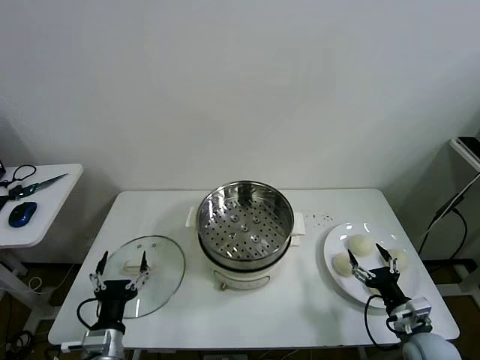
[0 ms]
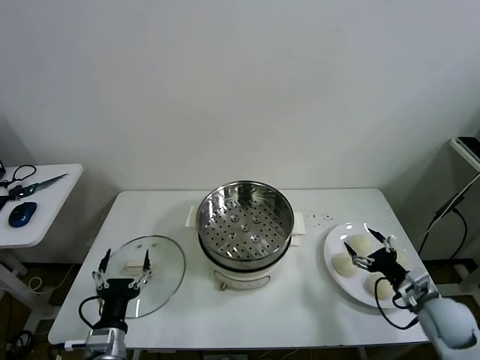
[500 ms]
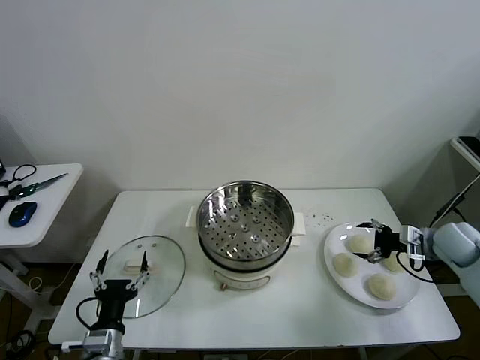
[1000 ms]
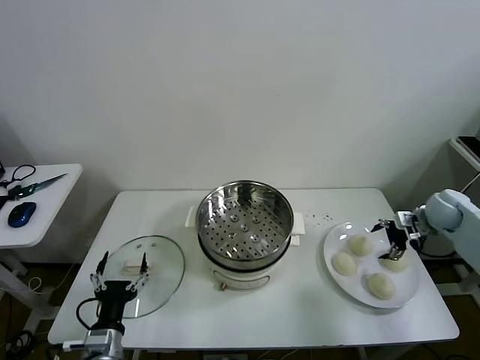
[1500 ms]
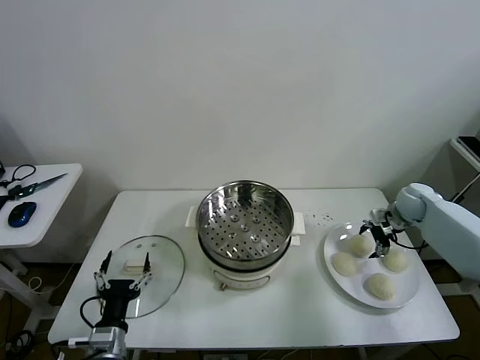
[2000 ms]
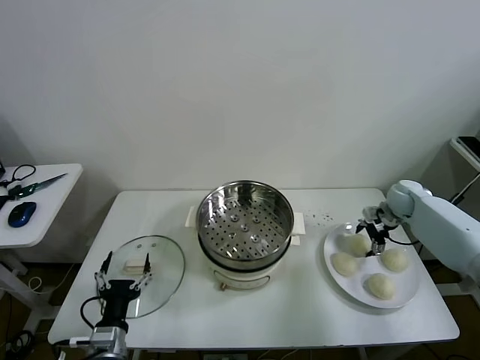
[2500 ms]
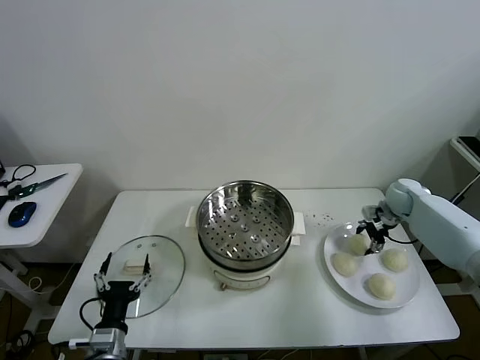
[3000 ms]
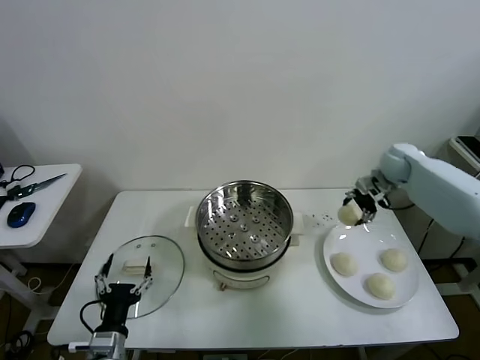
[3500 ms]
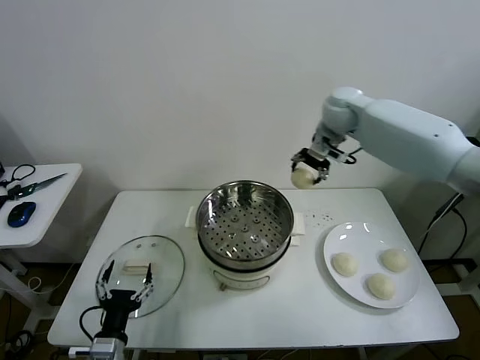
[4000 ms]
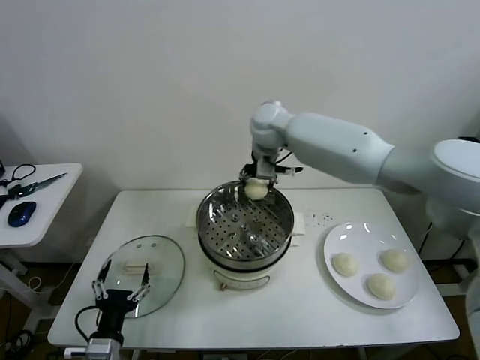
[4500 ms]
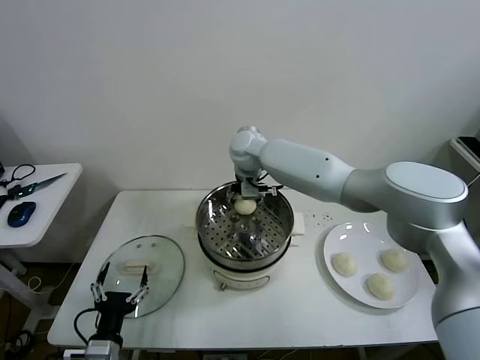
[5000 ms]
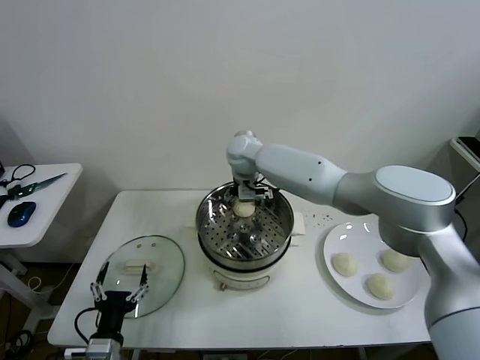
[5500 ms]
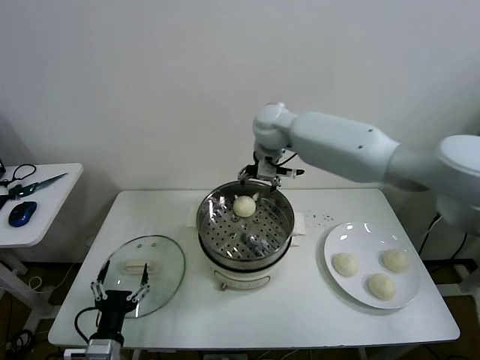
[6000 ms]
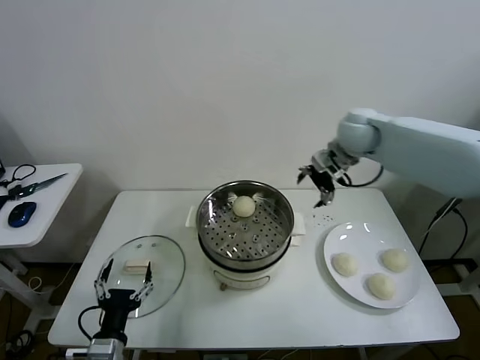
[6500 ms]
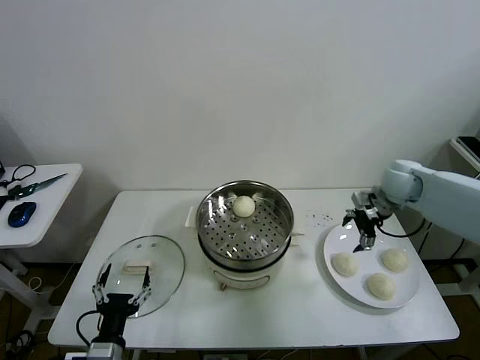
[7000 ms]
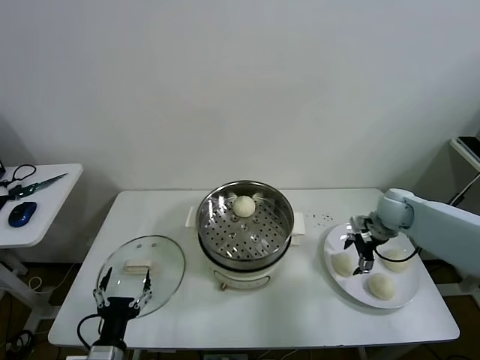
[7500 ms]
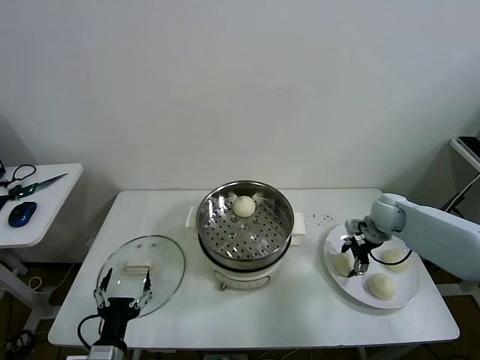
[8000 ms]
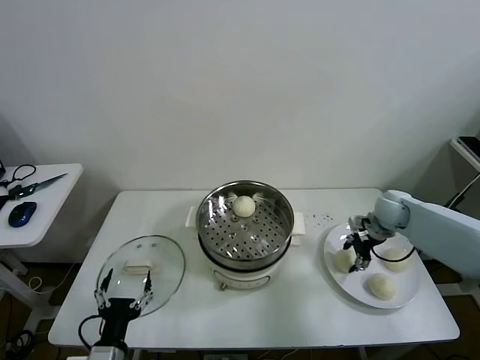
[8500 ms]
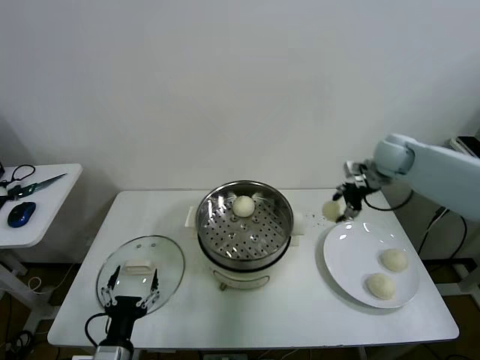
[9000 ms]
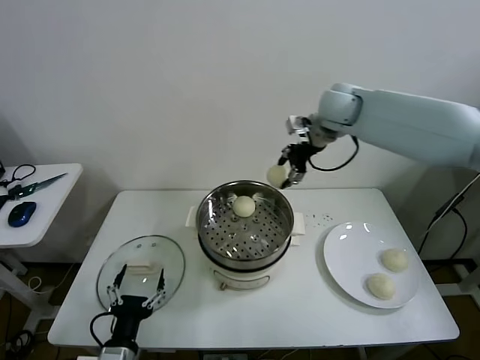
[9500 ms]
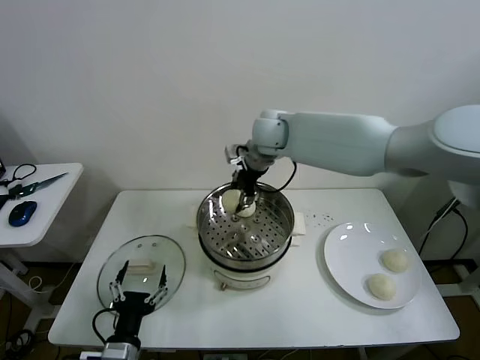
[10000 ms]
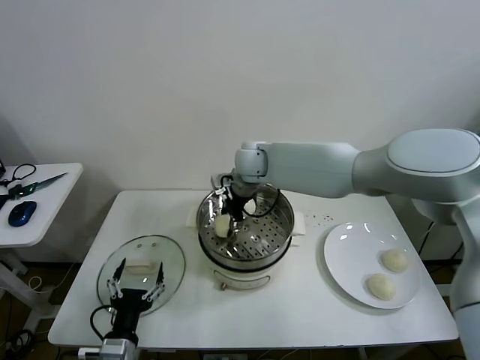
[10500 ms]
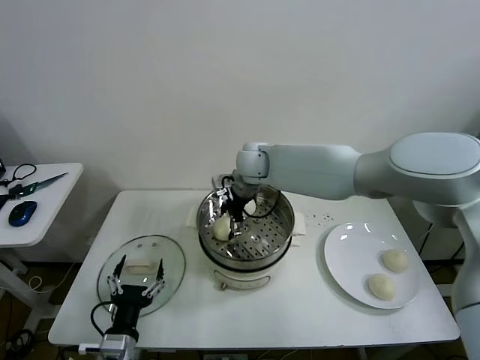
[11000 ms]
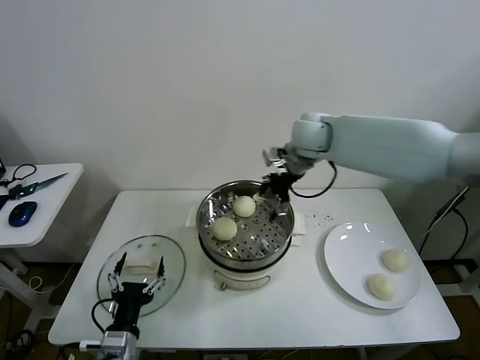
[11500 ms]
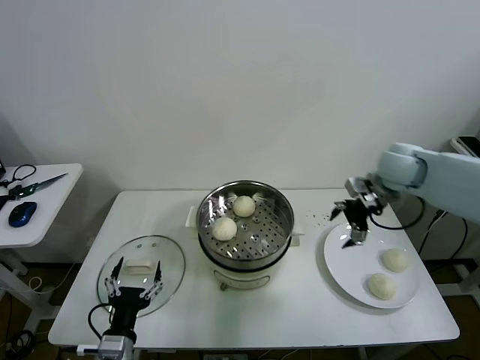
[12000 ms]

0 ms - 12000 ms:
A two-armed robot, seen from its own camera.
Task of the whole recording: take steamed baozi put them in steamer then cover it.
Step, 0 ms - 2500 ms: Grasp the baozi in the plate with right gripper.
Step, 3500 ms - 5500 ms: Place the baozi on the steamer with right gripper.
Step, 6000 ms - 8000 ms: Grasp the baozi in the plate with right gripper.
Step, 8500 ms - 10500 ms: Place the baozi on the steamer with right gripper.
2000 ms - 4000 ms: The right gripper is displaced to the left and upward by approximately 35 cm, and closes up.
4000 ms - 6000 ms: The right gripper moves to the left, some 10 cm, and opens.
6000 ms - 8000 ms: The right gripper moves to the right and downward, about 35 cm, and closes up.
8000 ms - 10000 ms: The right gripper moves to the left and upward, approximately 40 cm, and closes.
10000 ms - 12000 ms: The right gripper heads to the right, covering roughly 30 cm, and opens up.

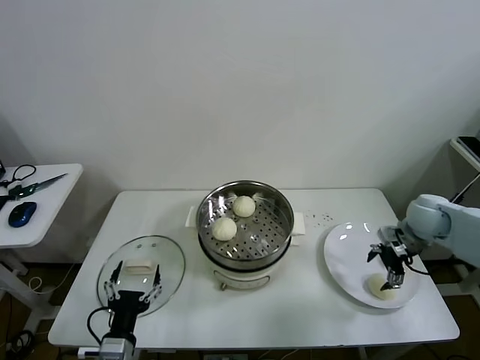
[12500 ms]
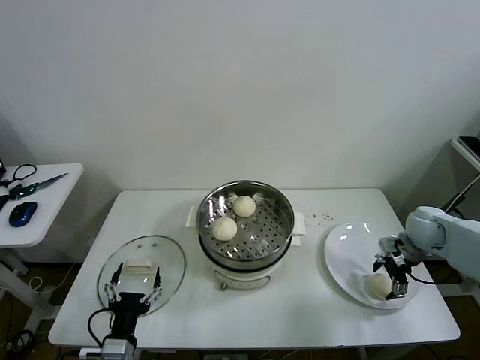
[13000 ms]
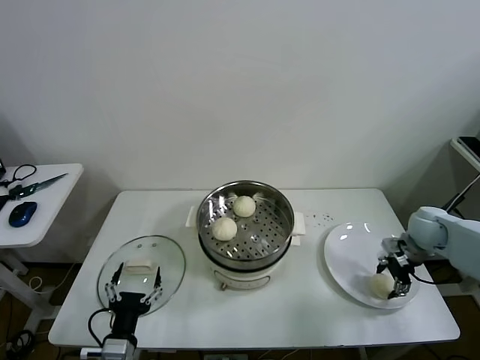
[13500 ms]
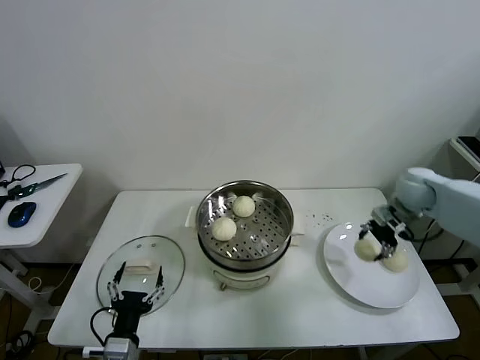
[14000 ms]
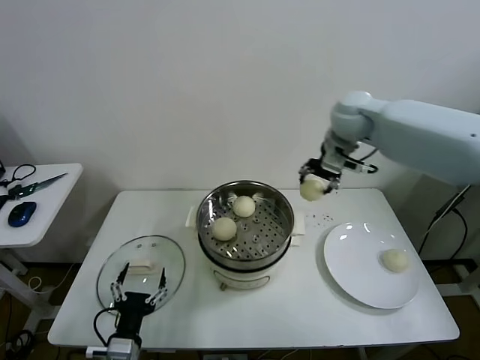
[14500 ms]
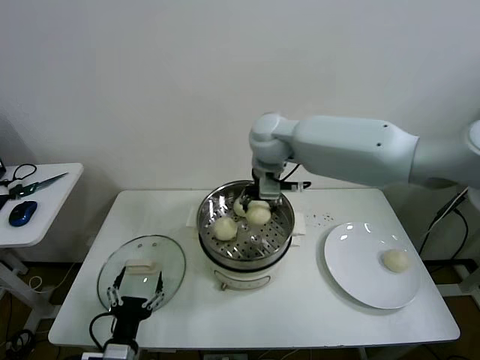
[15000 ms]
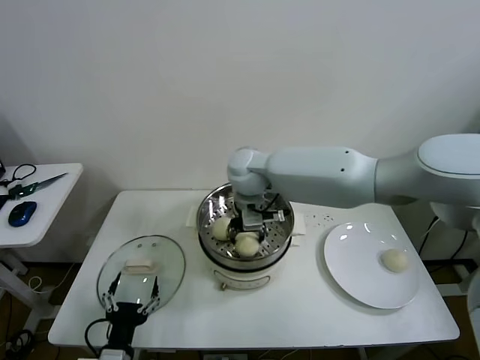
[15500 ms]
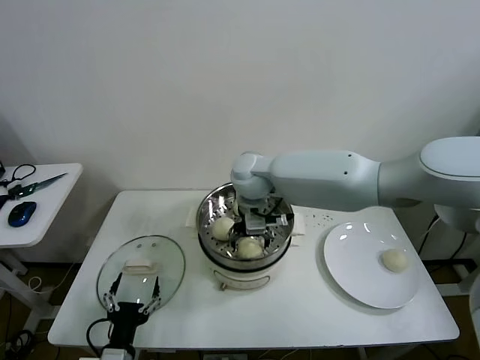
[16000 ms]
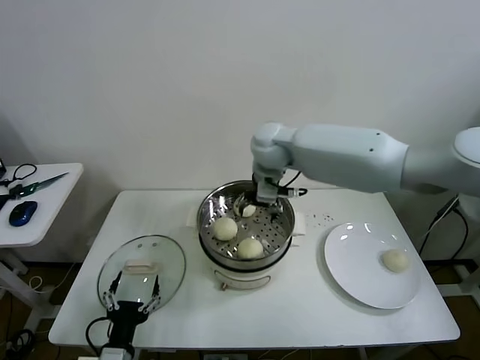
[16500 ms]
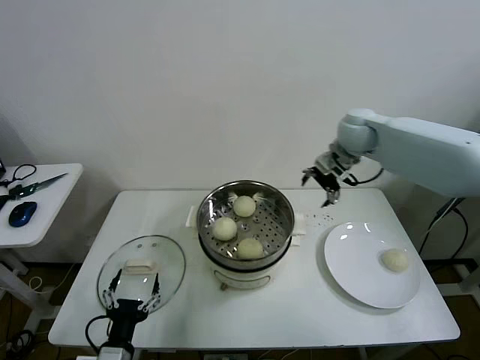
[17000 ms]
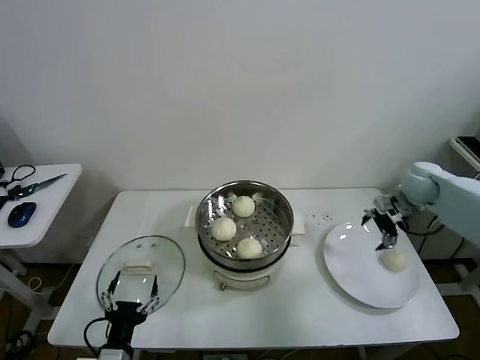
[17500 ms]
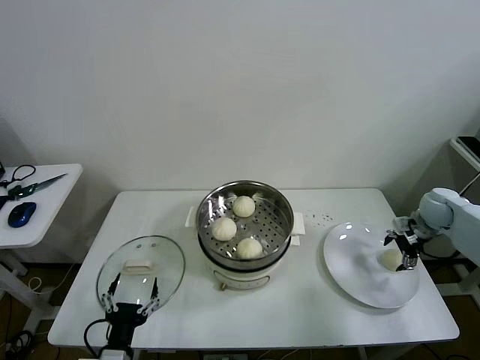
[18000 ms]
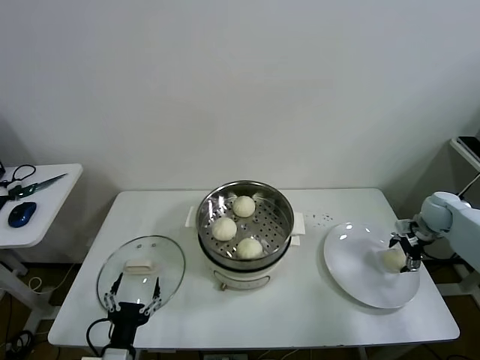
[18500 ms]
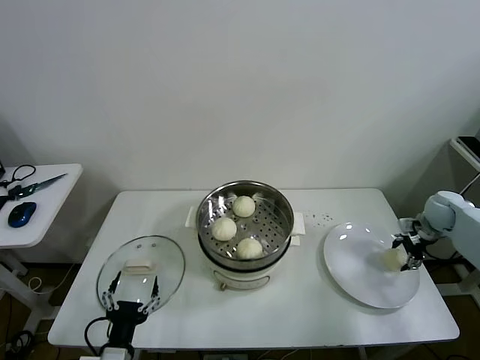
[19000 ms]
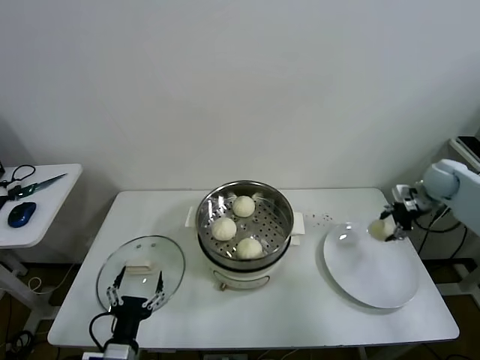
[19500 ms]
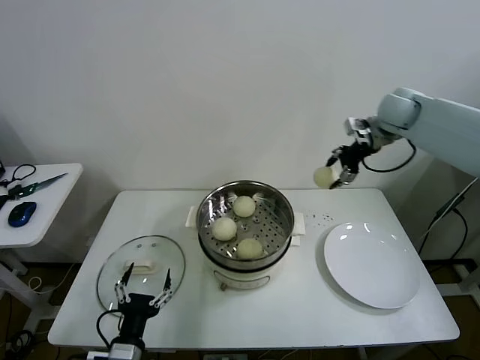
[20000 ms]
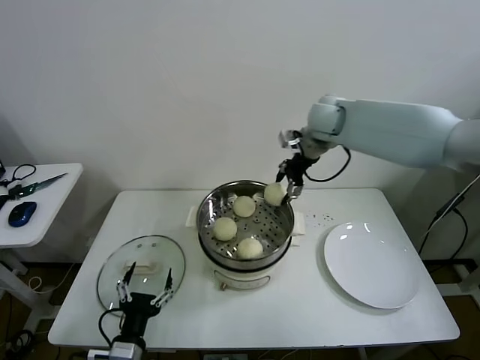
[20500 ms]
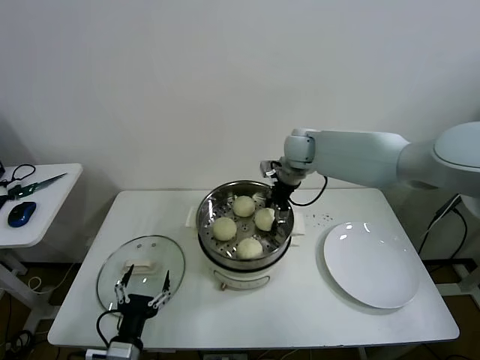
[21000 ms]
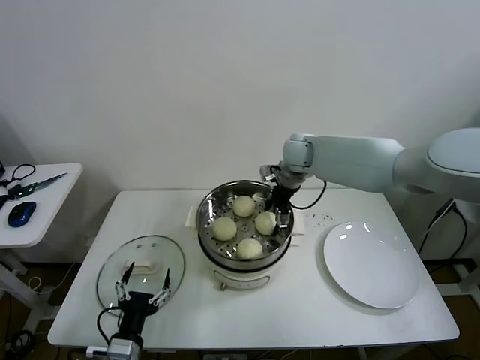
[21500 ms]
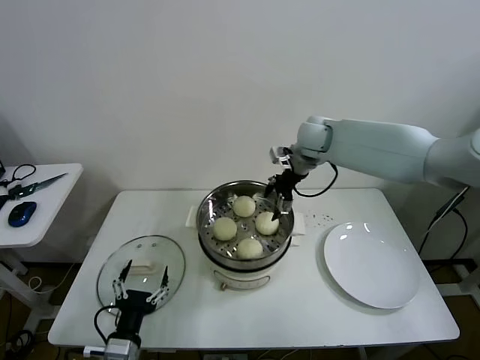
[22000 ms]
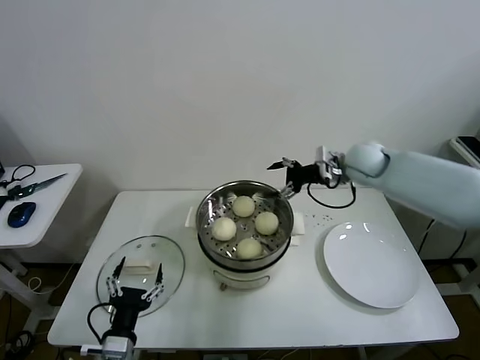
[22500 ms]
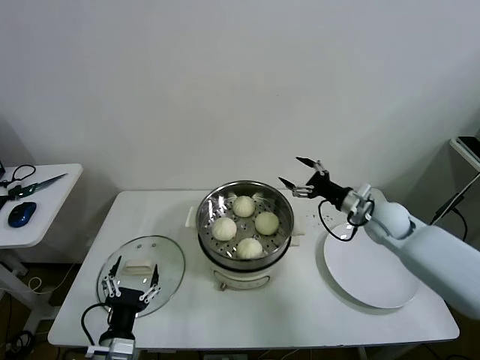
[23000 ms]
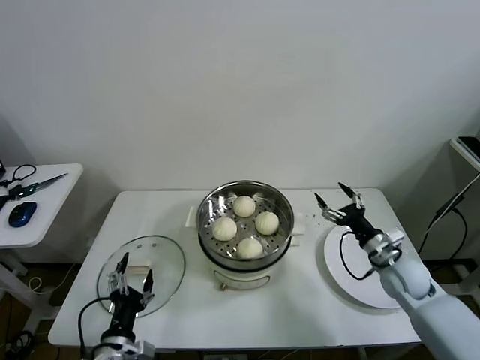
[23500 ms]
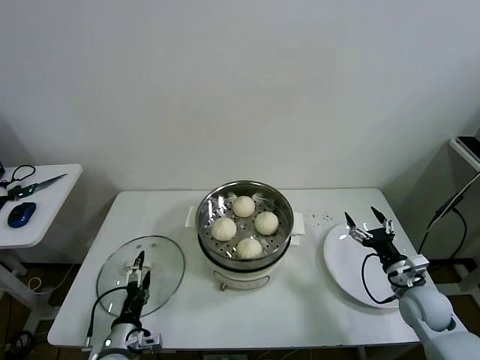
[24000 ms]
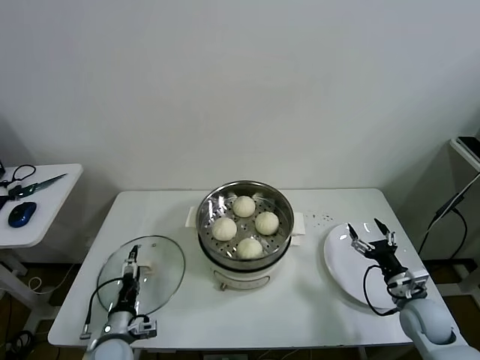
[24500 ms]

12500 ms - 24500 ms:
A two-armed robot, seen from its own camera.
Task of the whole recording: take steamed baozi put them in steamer then cover it.
Step, 14000 ms - 16000 ms: Place the baozi on the steamer with right gripper.
Step, 16500 ms - 18500 ms: Grasp the baozi in the plate with right gripper.
Step, 19500 ms - 21500 ms: Place the baozi on the steamer with right gripper.
12500 ms - 14500 ms: The right gripper moves to the left, upward and forward, about 35 cm, and closes its fingers.
14500 ms - 16500 ms: The right gripper shifts about 15 cm to the left and downward, and opens.
16500 ms - 18500 ms: The right gripper shifts some 50 cm to the right and downward.
18500 ms - 20500 ms: The right gripper is displaced to the left and upward by some 40 cm, and closes up.
20500 ms - 22500 ms: The right gripper goes roughly 15 cm downward and to the right, and opens its fingers.
22500 ms - 24500 ms: The left gripper heads downward and forward, covering approximately 10 cm, while the right gripper shifts roughly 40 cm backward, downward and to the right.

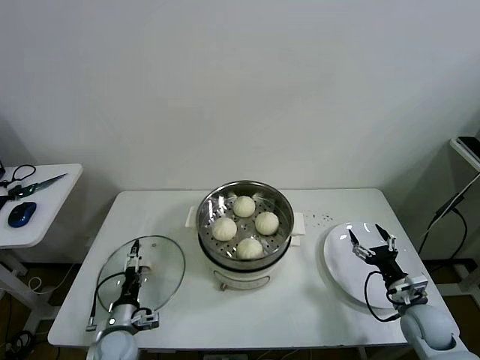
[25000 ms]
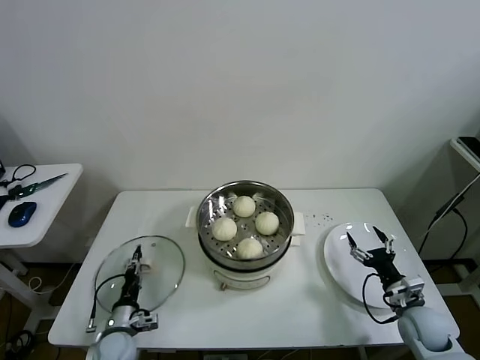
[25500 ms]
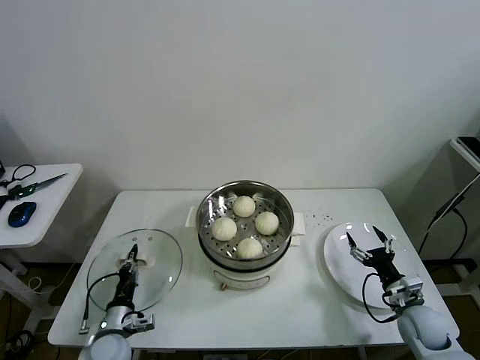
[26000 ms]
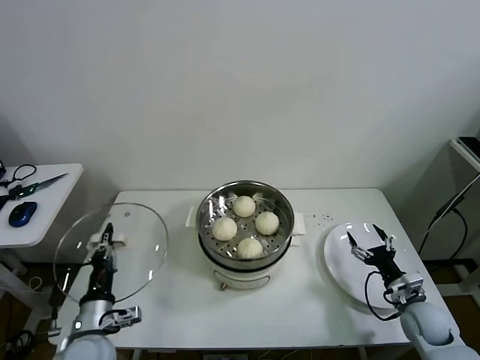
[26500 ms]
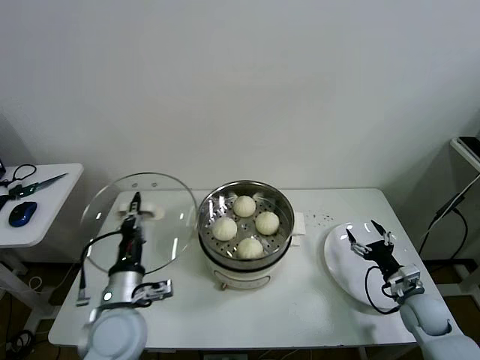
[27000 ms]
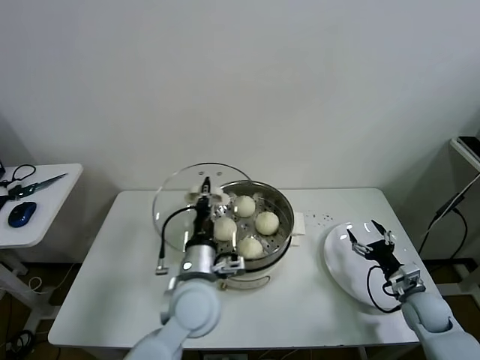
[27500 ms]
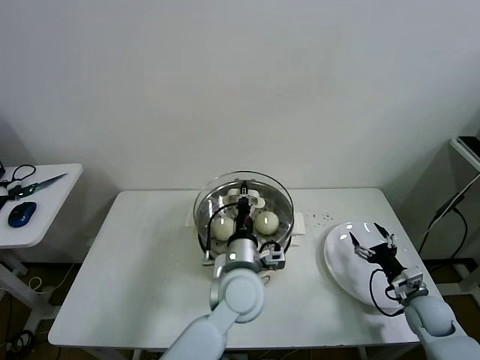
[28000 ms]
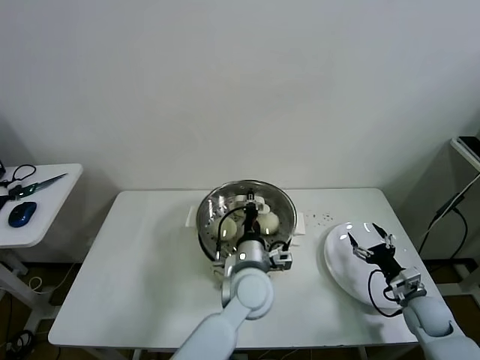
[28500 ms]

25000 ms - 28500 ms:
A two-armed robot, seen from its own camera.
Task of the whole recording: take steamed baozi put them in steamer then cover it.
25000 ms - 27000 ms: The left gripper shifts roughly 20 cm upward, and closes its fingers.
27000 ms - 28500 ms: The left gripper shifts approximately 25 cm to the right.
